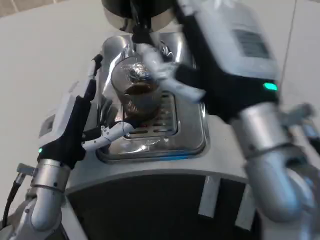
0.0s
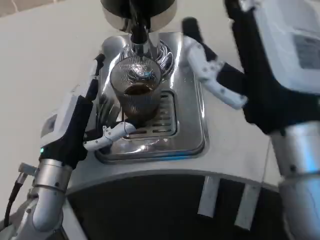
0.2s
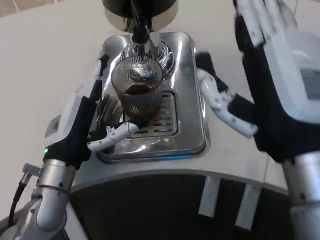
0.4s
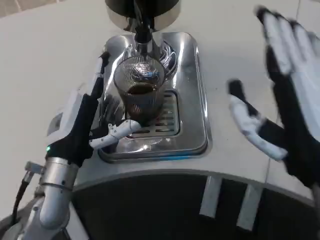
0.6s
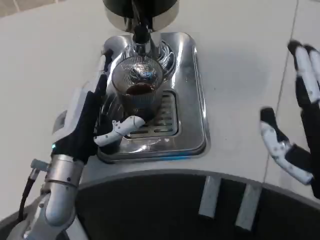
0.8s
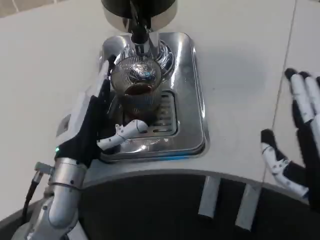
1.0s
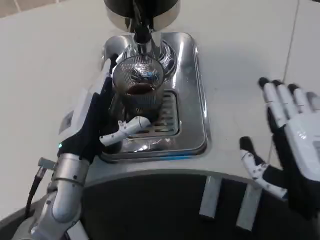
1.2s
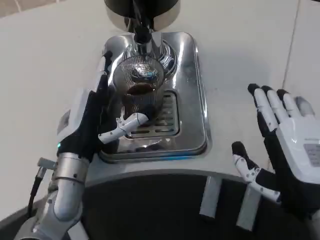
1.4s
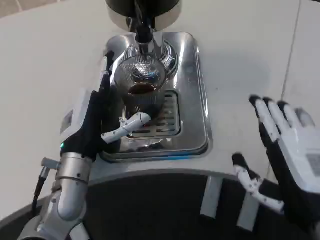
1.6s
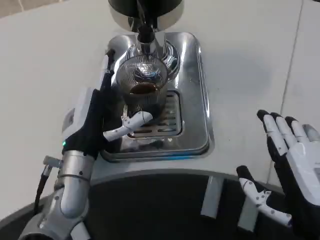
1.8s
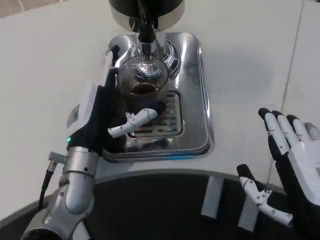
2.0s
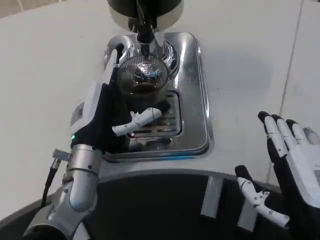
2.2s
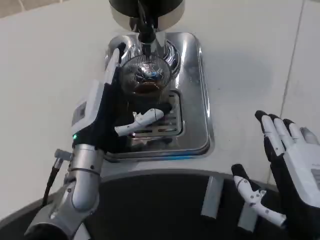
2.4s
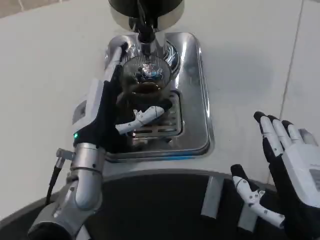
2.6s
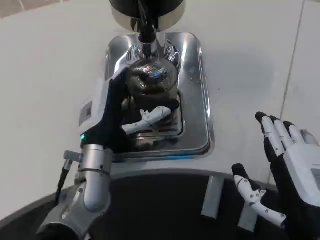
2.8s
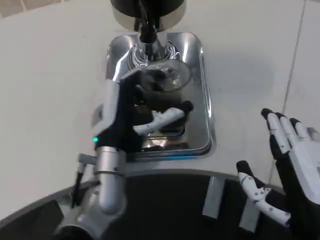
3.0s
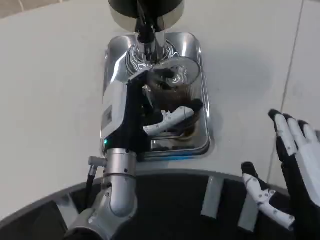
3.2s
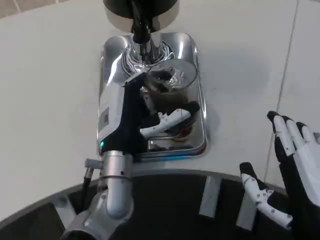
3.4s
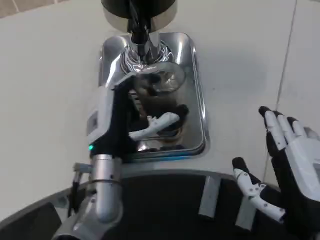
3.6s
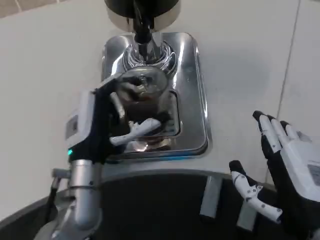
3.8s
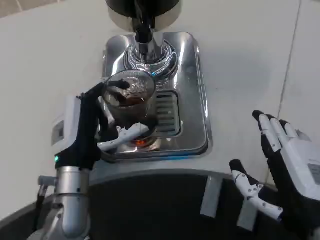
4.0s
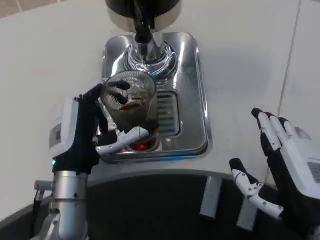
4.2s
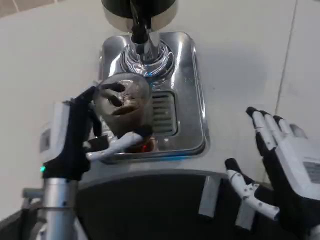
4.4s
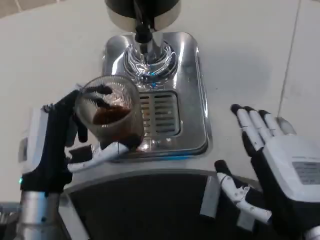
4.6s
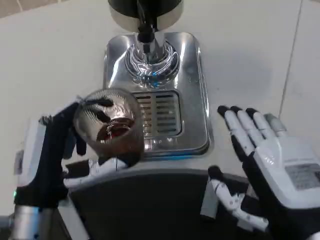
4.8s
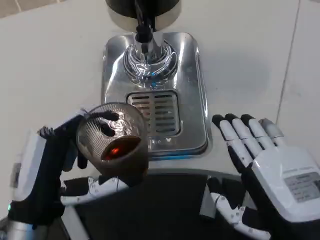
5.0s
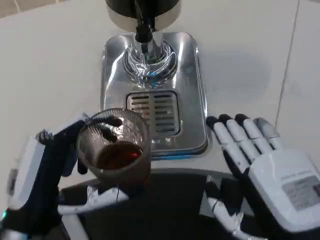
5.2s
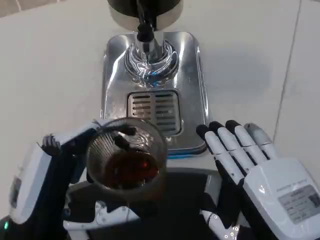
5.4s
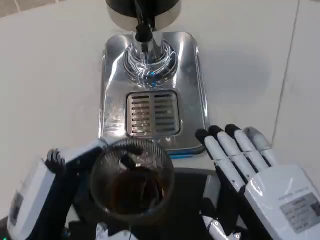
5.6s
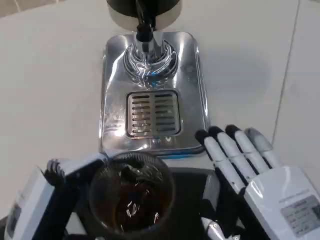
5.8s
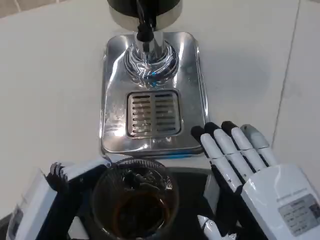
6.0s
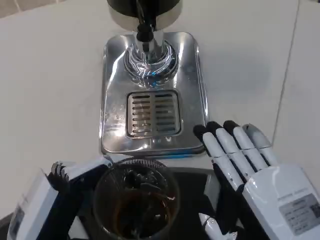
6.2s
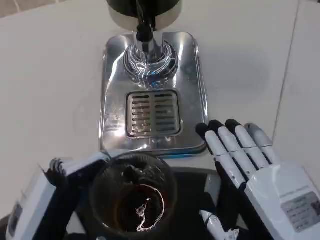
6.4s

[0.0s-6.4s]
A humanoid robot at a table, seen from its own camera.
Task of the whole recording: Grasp the cup under the faucet to collect the drink, then remove the cup.
0.0s to 1.6s: The right hand moves downward and to the right, some 15 cm.
1.6s to 3.2s: The left hand moves to the right, some 5 cm.
3.2s to 4.8s: The left hand heads to the left and backward, covering about 15 cm.
4.8s to 6.4s: The left hand is displaced backward by roughly 5 cm.

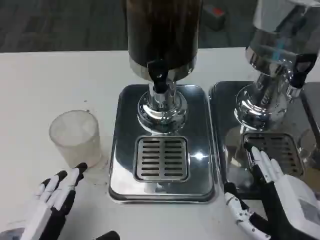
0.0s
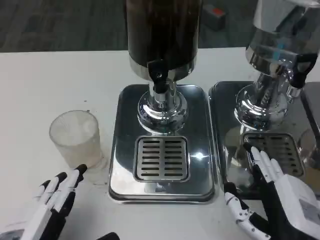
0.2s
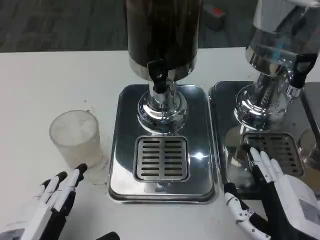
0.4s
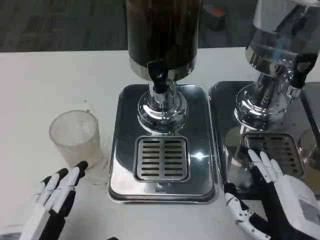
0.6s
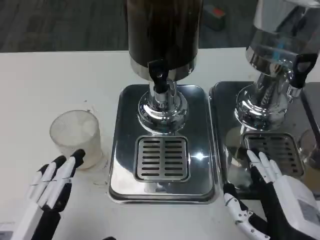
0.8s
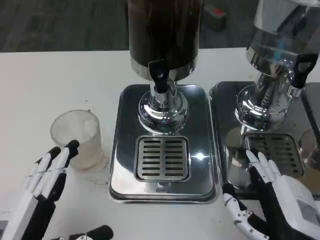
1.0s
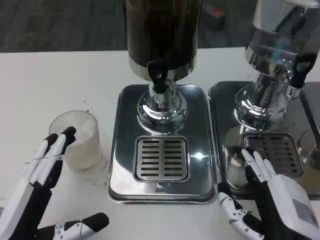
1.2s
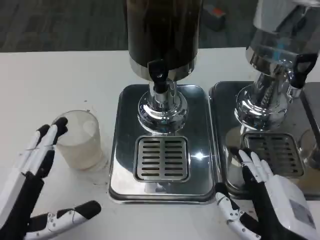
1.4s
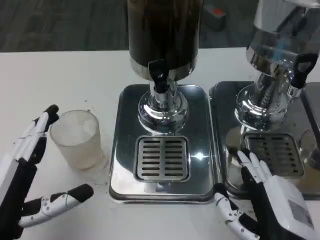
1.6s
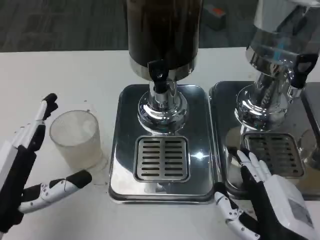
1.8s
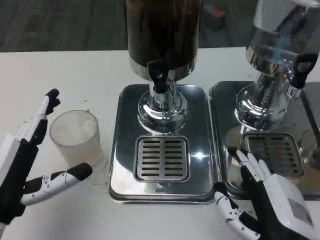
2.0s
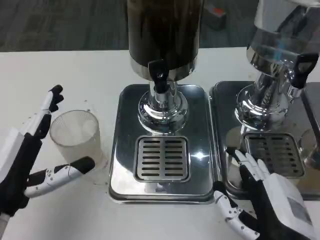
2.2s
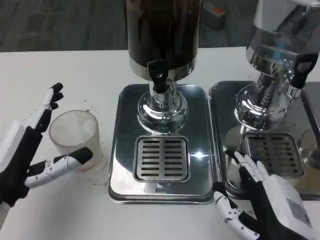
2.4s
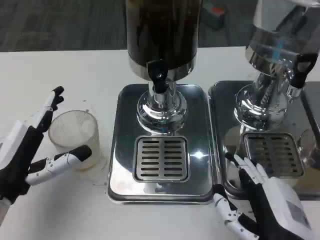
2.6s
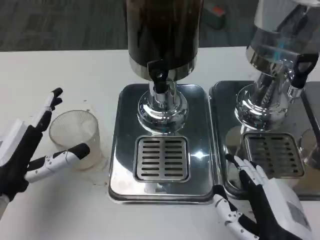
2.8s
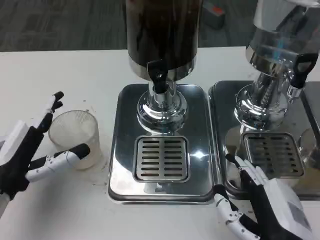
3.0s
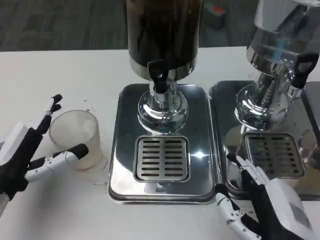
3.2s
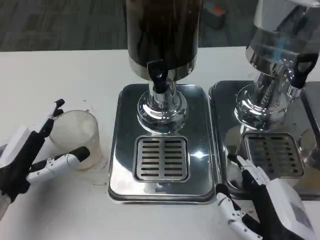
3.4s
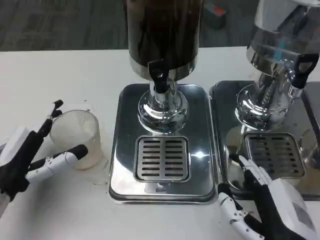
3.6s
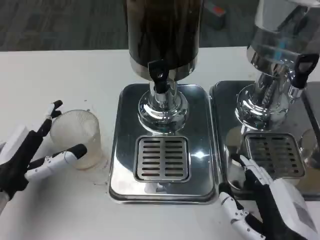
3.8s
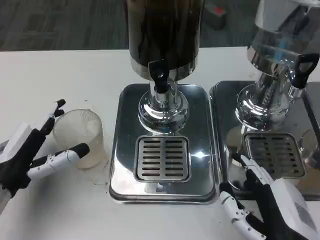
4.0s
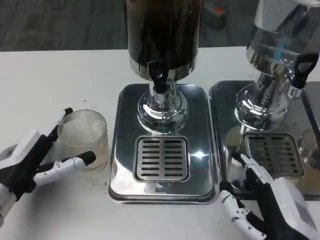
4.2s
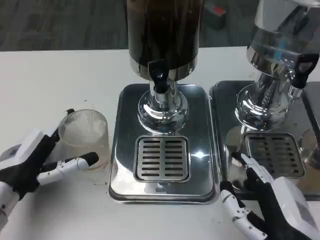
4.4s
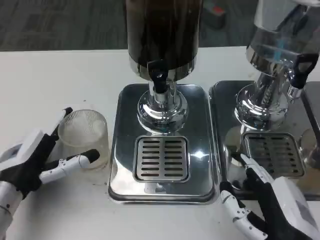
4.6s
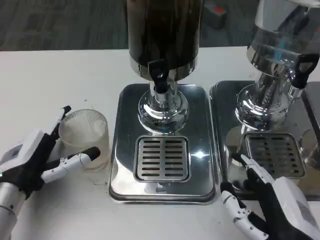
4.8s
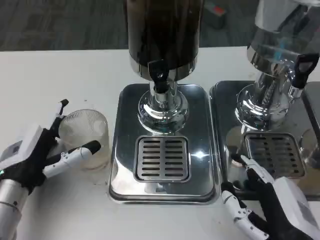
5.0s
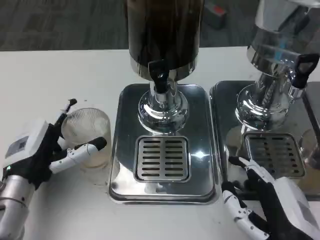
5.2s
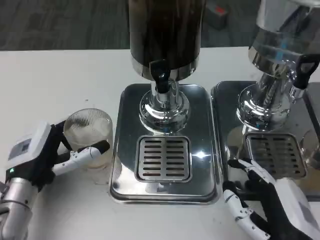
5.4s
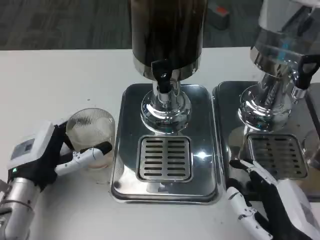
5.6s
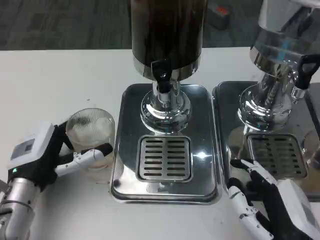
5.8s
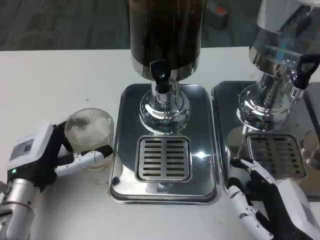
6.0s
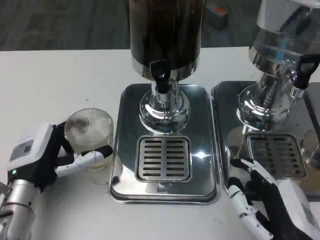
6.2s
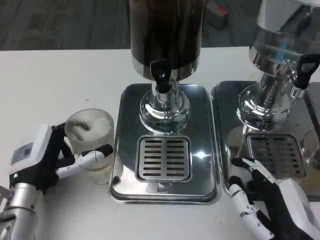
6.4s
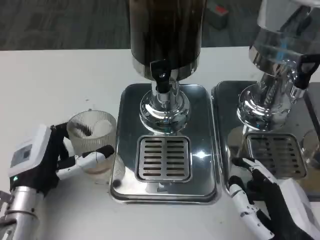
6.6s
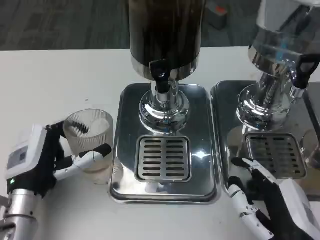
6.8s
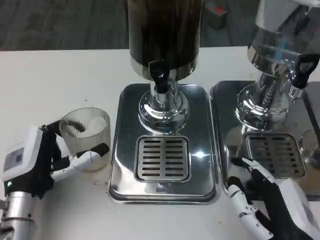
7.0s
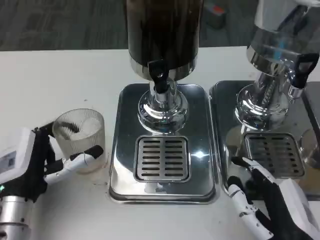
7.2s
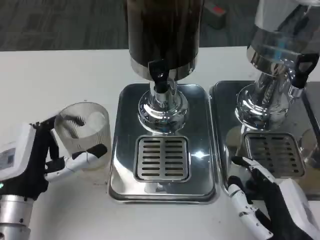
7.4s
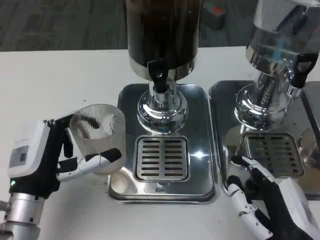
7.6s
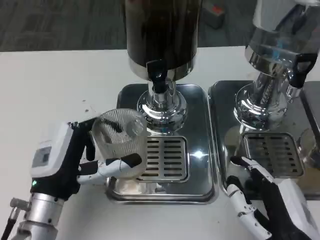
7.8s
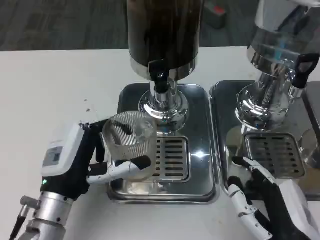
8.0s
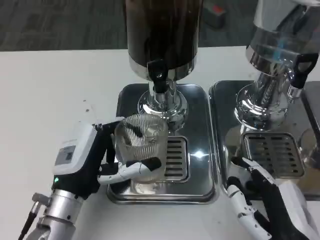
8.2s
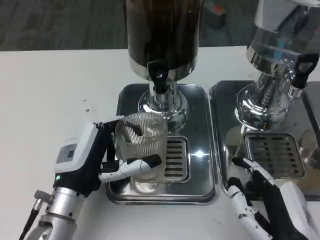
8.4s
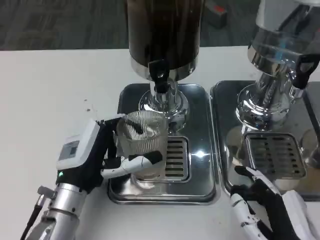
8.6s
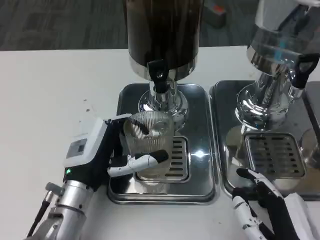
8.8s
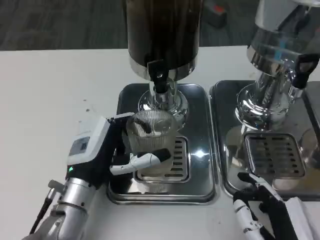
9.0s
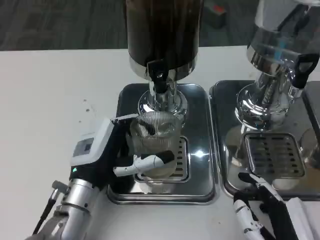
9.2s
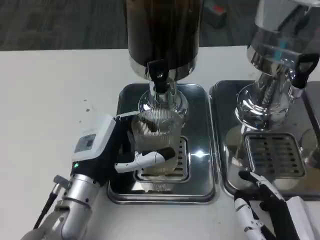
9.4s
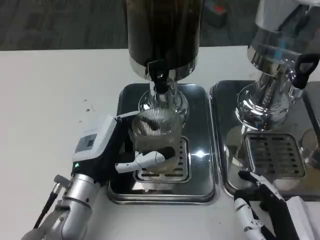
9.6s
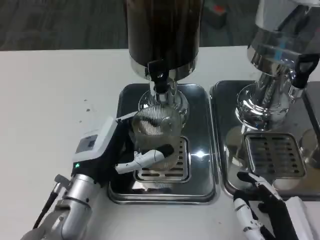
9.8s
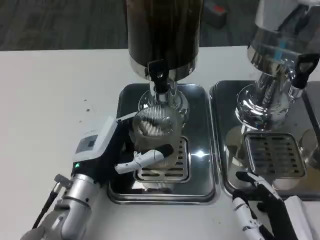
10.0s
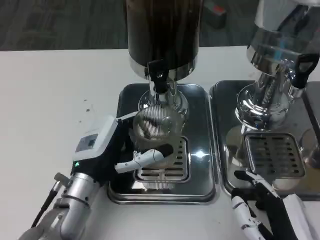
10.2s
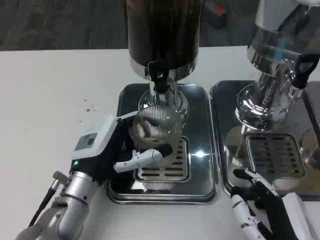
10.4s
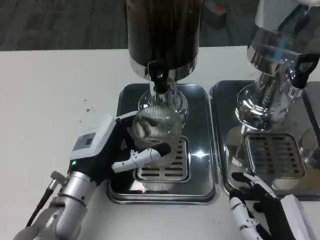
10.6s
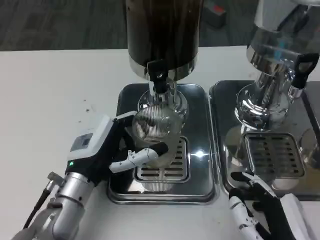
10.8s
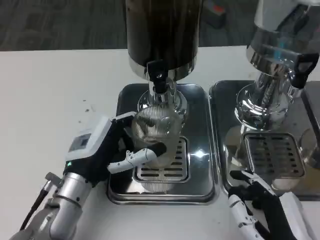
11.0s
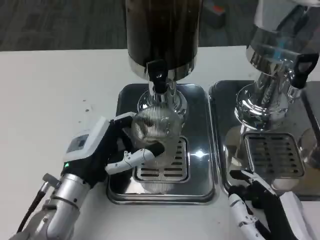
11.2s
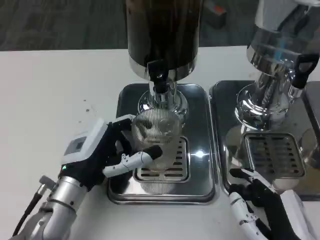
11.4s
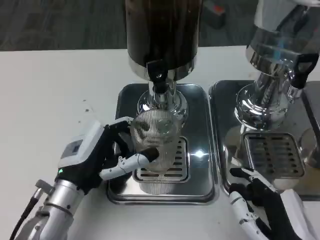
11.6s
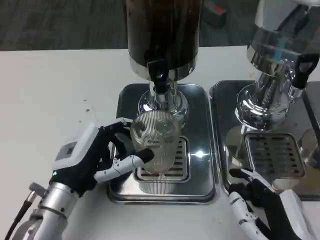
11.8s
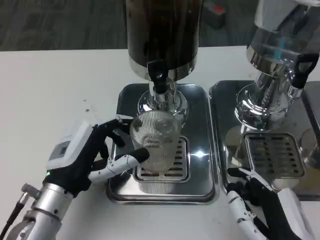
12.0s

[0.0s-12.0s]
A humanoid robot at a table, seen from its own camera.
Task of the whole recording: Grasp the cup under the faucet to collect the drink, then remove the cup.
0.0s to 1.6s: The left hand heads forward, covering some 5 cm.
1.6s to 3.0s: The left hand goes some 10 cm forward.
3.0s to 6.0s: There are only small adjustments of the hands.
7.6s to 9.0s: The left hand goes about 5 cm to the right.
9.0s to 12.0s: The hands make only small movements.

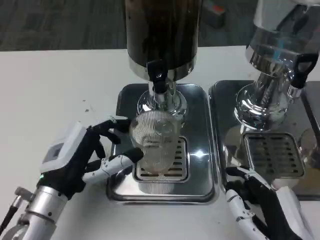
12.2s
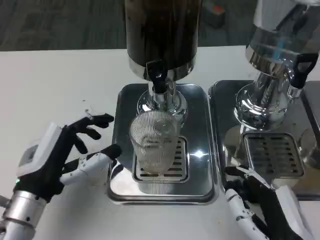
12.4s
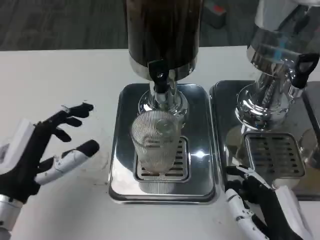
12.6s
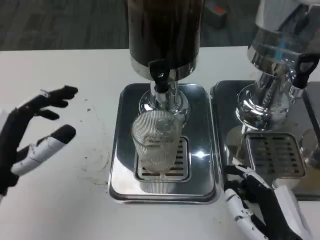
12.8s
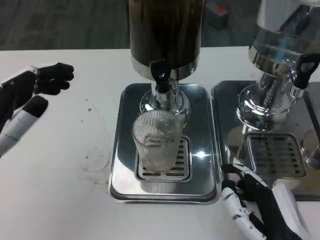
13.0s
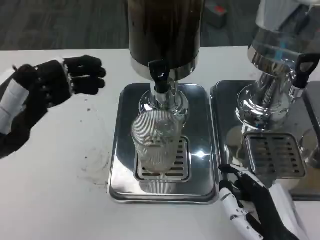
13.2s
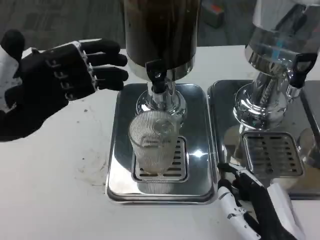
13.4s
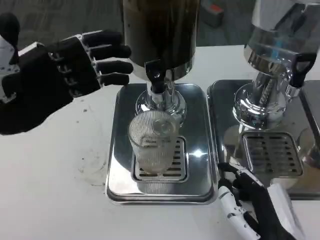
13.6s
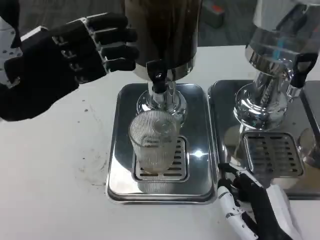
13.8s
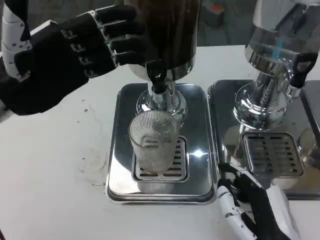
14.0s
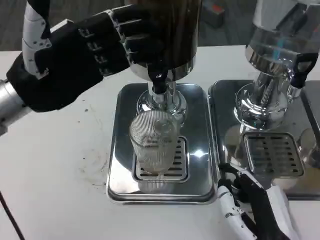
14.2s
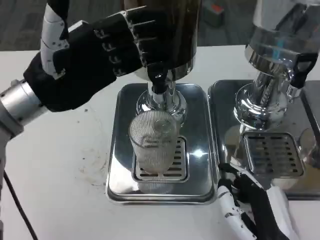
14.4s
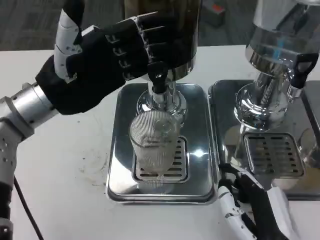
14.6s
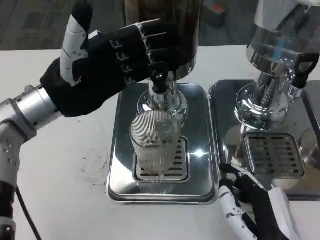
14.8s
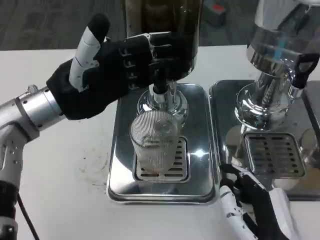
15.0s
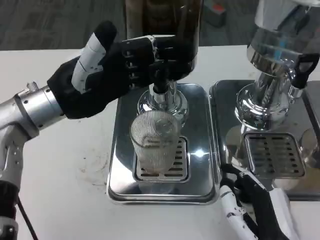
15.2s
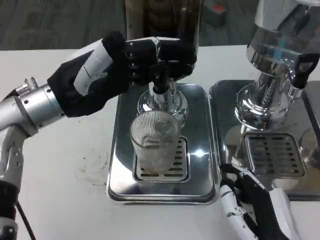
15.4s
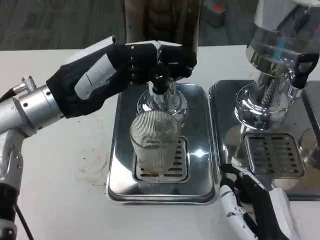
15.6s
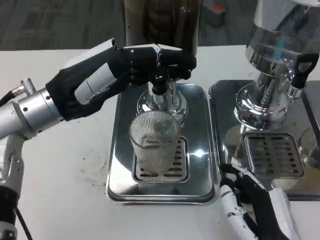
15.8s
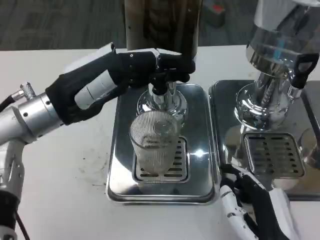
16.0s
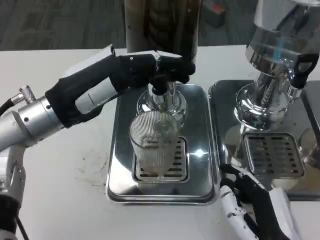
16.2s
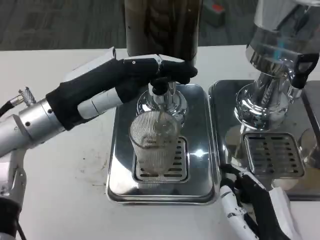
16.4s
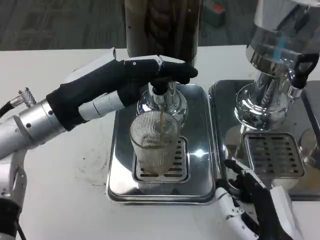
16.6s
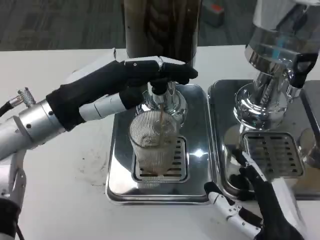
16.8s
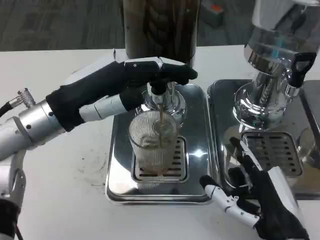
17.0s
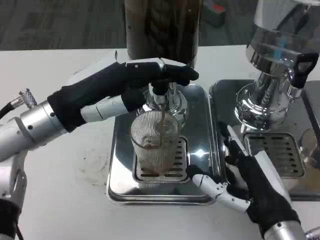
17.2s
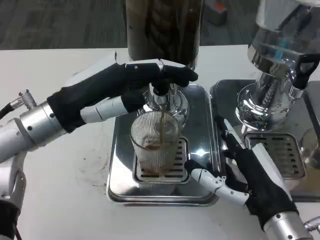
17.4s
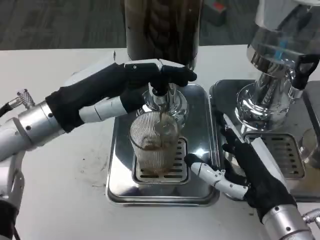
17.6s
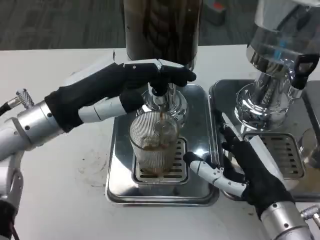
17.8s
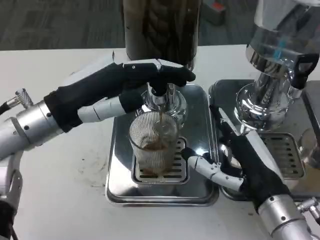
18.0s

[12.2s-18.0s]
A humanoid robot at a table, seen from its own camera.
Task of the whole recording: Grasp the cup under the faucet to collect the drink, then remove the cup.
12.2s to 13.6s: The left hand is displaced upward, to the left and forward by roughly 20 cm.
13.6s to 15.0s: The left hand goes about 5 cm to the right.
16.6s to 18.0s: The right hand is displaced forward by some 10 cm.
